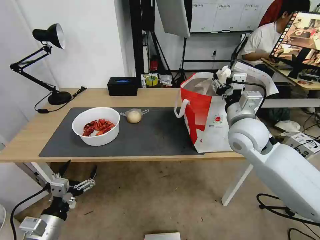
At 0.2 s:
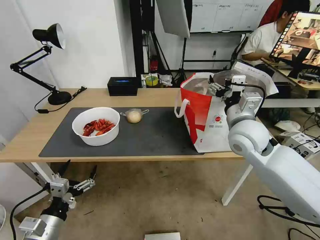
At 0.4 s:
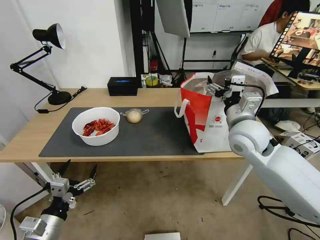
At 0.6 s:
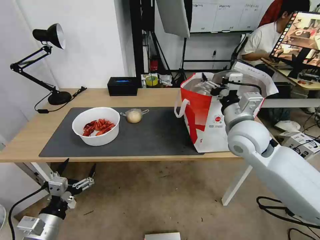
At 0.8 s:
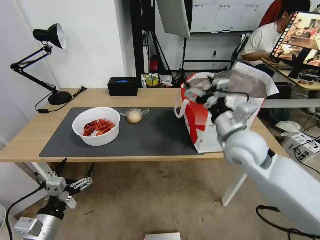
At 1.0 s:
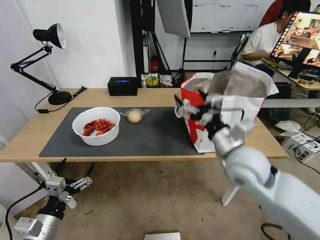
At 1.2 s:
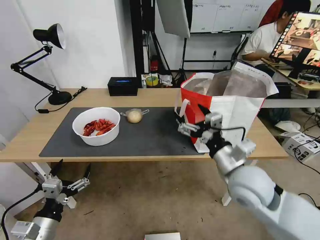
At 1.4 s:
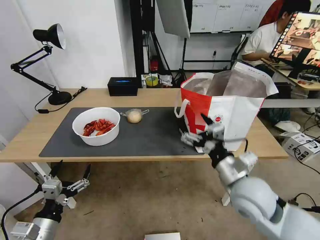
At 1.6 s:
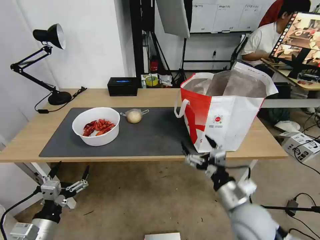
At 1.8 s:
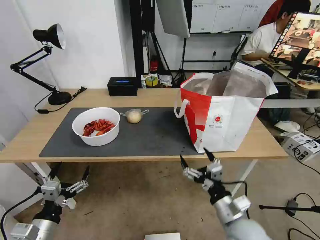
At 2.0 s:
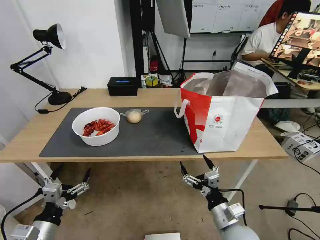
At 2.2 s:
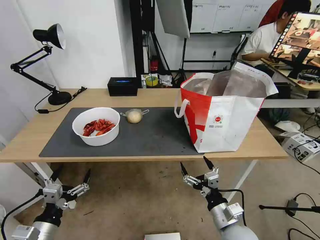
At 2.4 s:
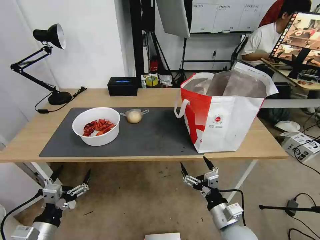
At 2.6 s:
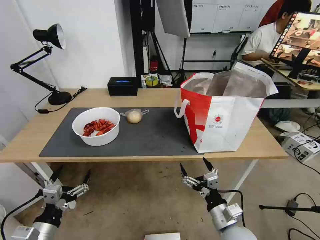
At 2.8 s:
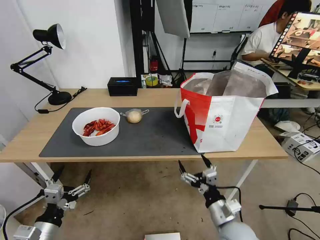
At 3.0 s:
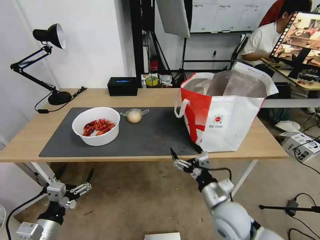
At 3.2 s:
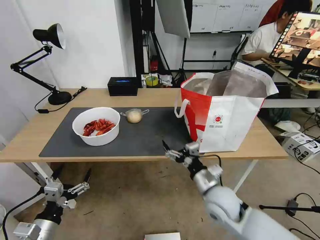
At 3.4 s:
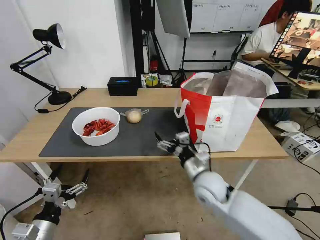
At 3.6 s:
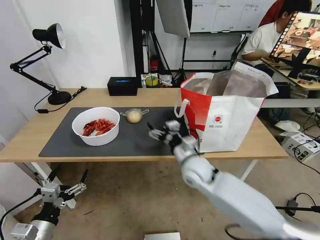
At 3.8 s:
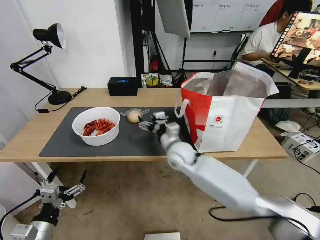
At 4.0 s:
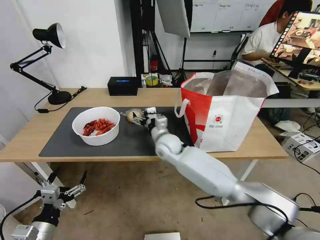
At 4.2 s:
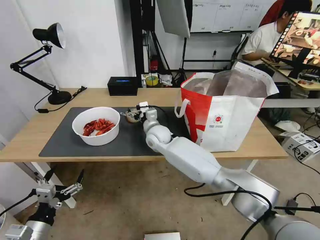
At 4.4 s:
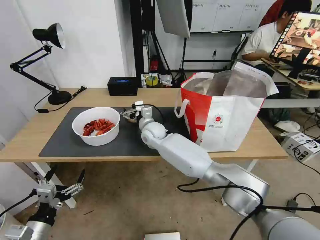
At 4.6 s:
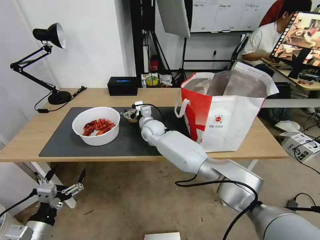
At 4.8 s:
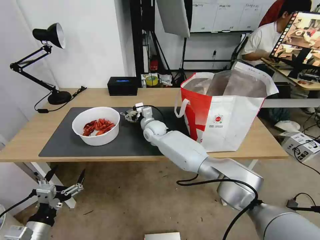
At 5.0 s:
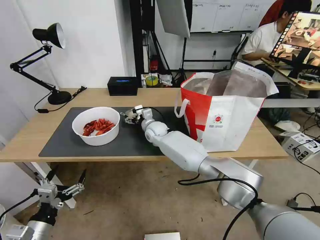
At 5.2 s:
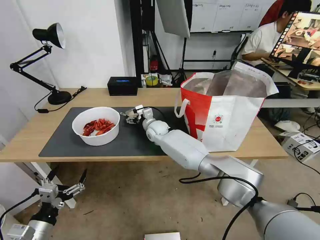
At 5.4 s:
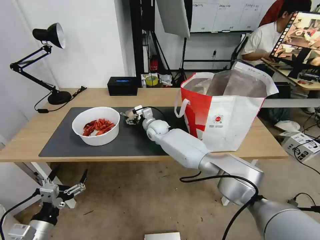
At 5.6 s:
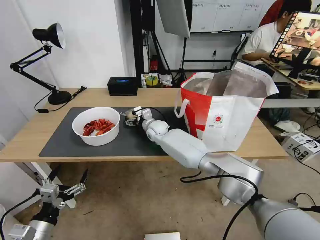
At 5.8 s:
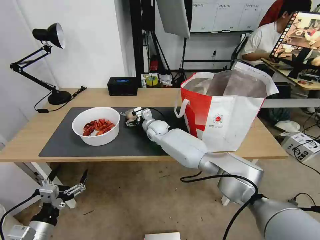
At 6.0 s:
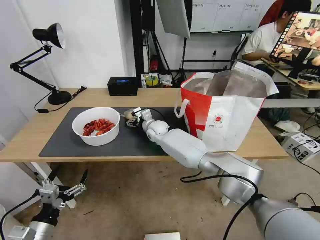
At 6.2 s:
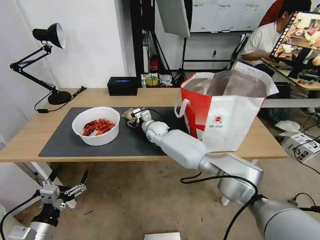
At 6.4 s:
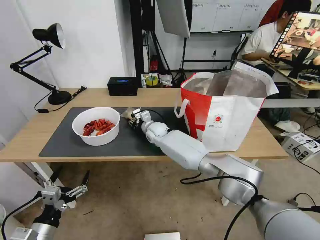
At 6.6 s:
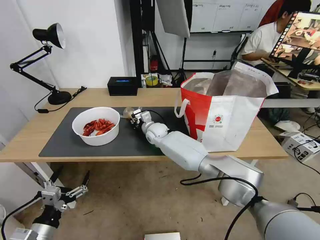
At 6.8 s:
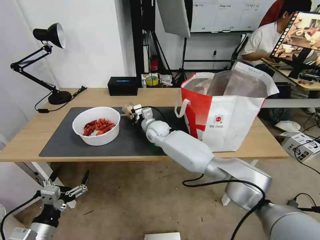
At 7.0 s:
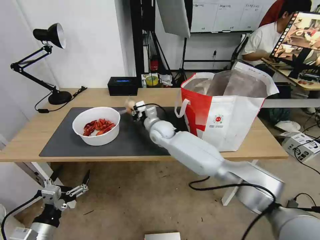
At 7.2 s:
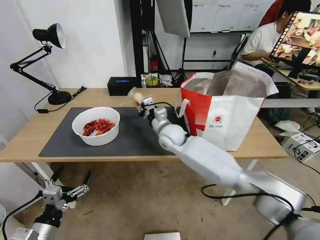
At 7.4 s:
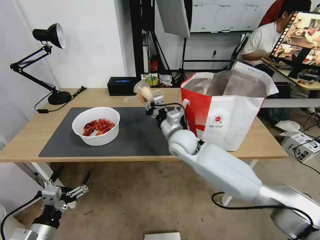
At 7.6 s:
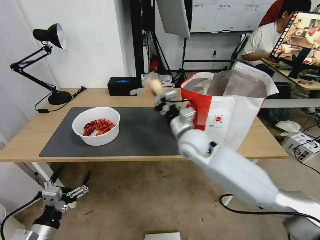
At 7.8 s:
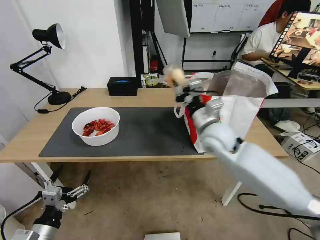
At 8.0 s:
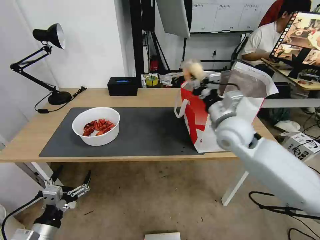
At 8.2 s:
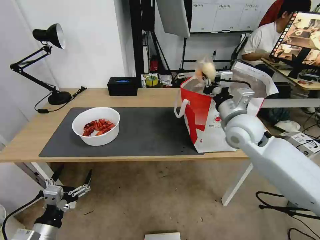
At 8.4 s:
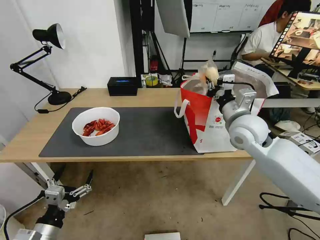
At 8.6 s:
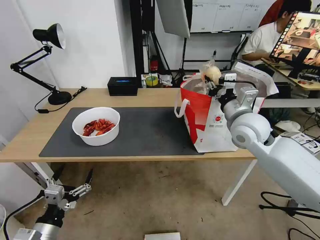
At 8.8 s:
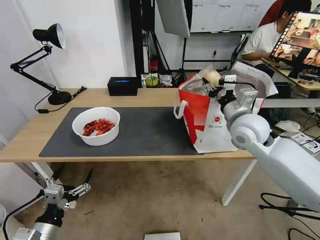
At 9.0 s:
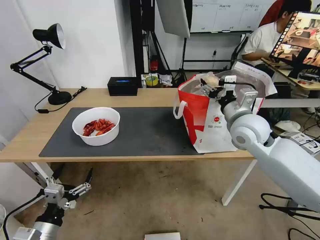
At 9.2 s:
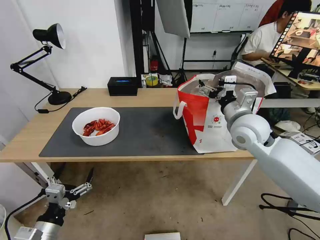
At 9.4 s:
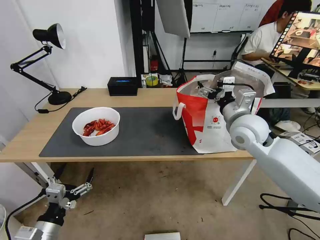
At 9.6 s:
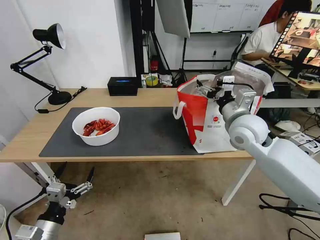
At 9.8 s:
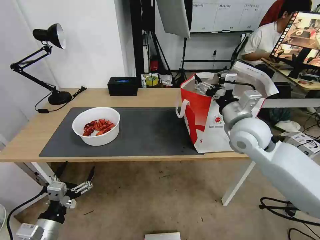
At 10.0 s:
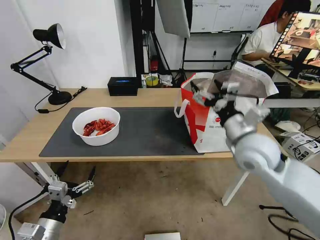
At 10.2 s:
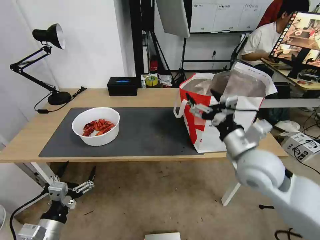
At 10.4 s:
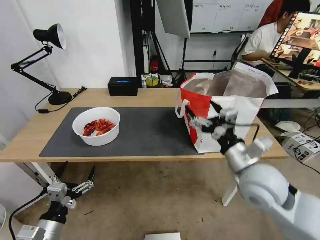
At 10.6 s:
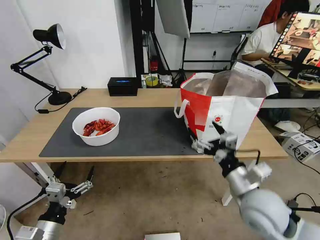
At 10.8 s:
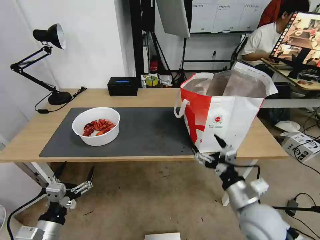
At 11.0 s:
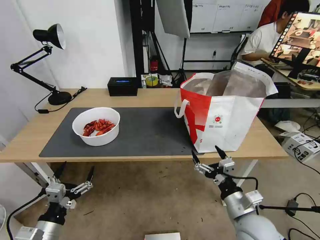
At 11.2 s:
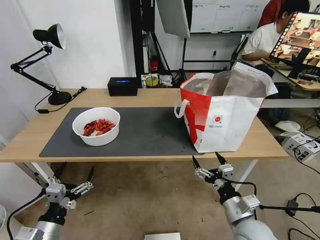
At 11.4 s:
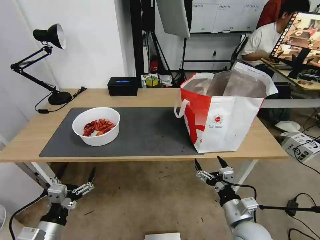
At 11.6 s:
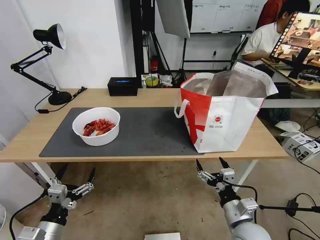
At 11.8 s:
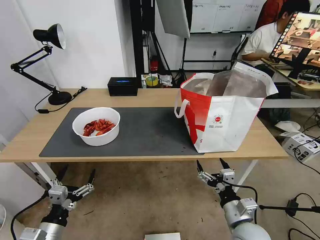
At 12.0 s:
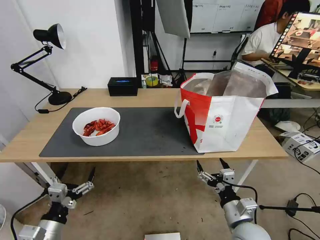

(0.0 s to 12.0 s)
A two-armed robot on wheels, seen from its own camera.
Task of the whole recording: Pick up the trash from the table and place it into the takeout bag.
0.0 s - 1.6 s: The right gripper shifts roughly 20 cm backward and downward.
1.6 s - 3.0 s: The right gripper shifts some 5 cm downward.
3.0 s - 4.4 s: The right gripper moves forward and to the left, roughly 35 cm.
4.4 s - 6.0 s: The right gripper travels forward by about 5 cm.
6.0 s - 7.6 s: The right gripper shifts some 25 cm backward, to the right and upward, and closes its fingers.
7.6 s - 9.0 s: The right gripper moves to the right and upward, roughly 15 cm, and opens.
9.0 s - 10.4 s: The right gripper heads backward, covering some 15 cm.
10.4 s - 12.0 s: The right gripper shifts approximately 20 cm downward and backward.

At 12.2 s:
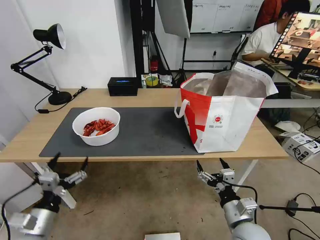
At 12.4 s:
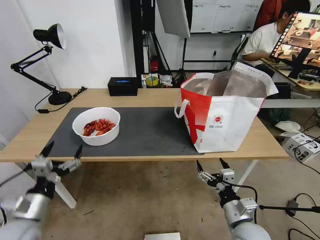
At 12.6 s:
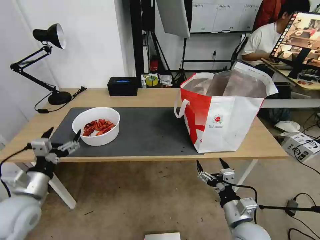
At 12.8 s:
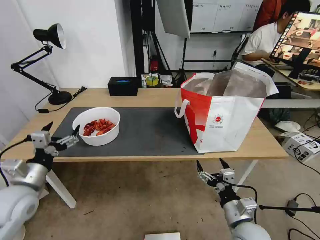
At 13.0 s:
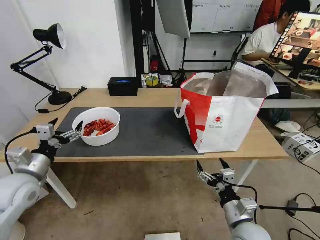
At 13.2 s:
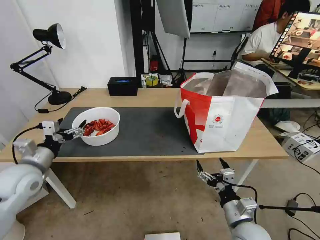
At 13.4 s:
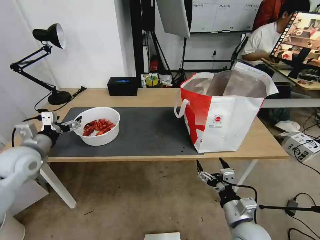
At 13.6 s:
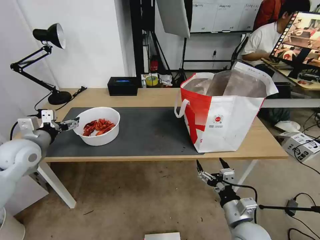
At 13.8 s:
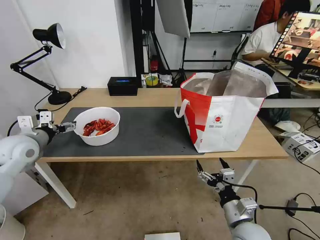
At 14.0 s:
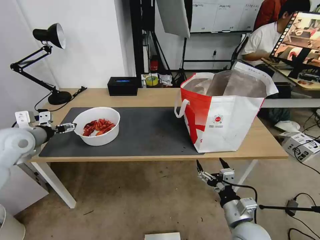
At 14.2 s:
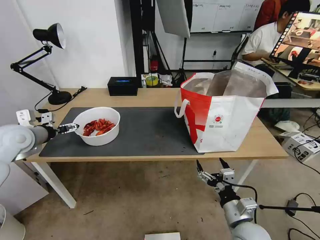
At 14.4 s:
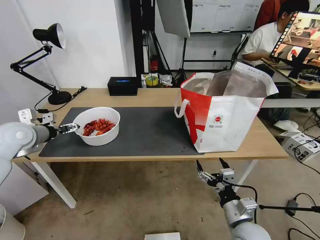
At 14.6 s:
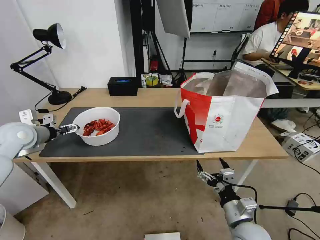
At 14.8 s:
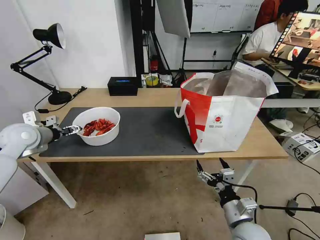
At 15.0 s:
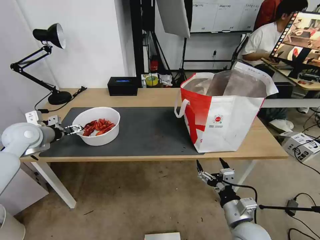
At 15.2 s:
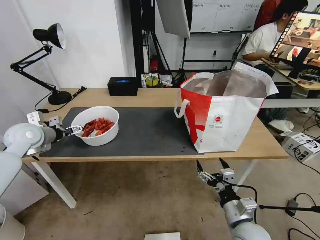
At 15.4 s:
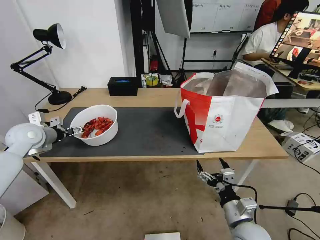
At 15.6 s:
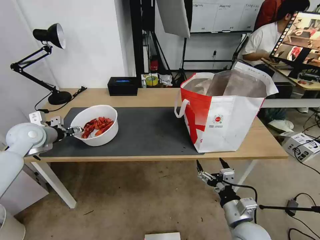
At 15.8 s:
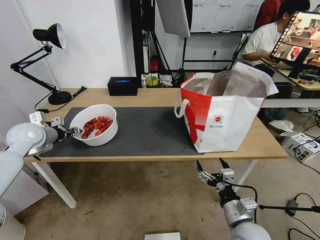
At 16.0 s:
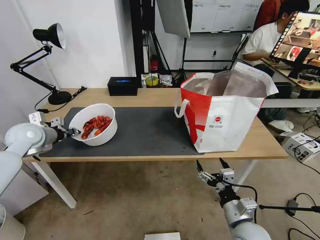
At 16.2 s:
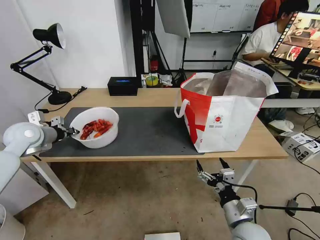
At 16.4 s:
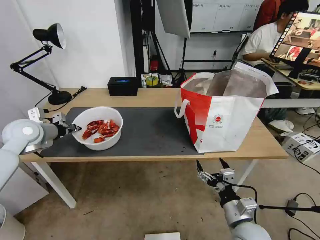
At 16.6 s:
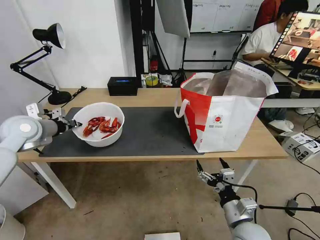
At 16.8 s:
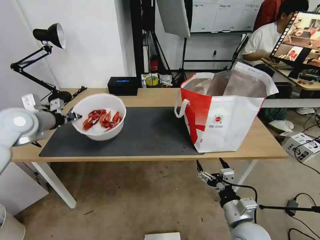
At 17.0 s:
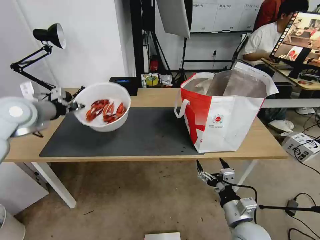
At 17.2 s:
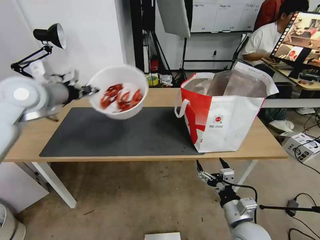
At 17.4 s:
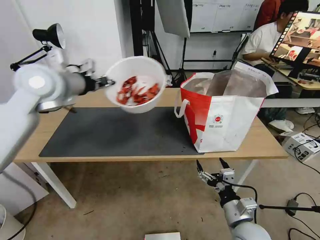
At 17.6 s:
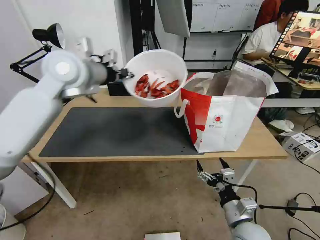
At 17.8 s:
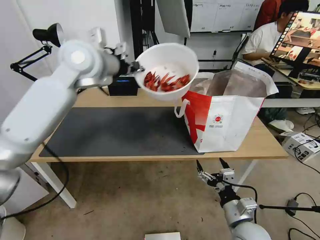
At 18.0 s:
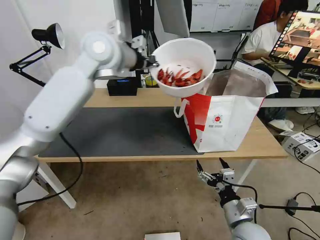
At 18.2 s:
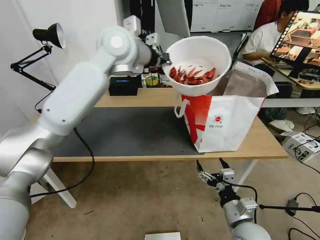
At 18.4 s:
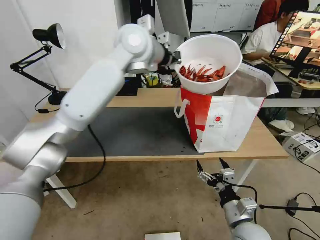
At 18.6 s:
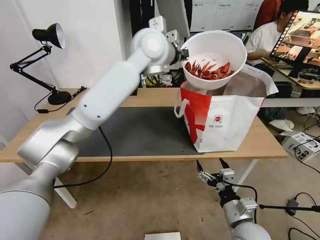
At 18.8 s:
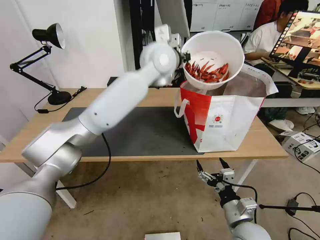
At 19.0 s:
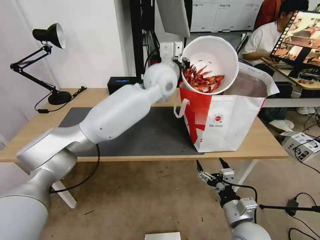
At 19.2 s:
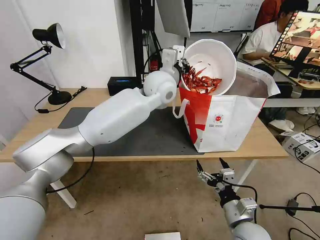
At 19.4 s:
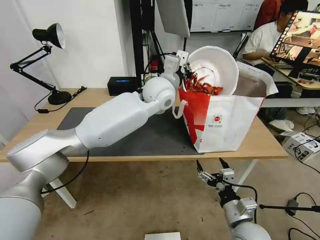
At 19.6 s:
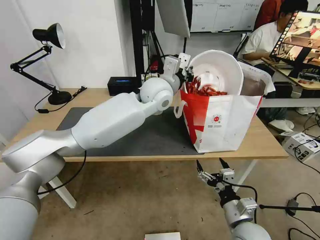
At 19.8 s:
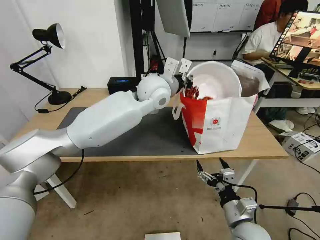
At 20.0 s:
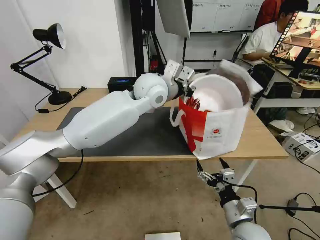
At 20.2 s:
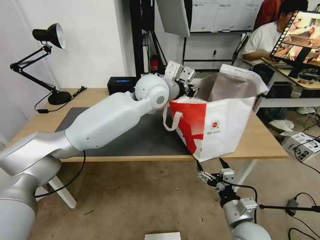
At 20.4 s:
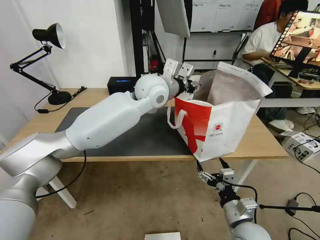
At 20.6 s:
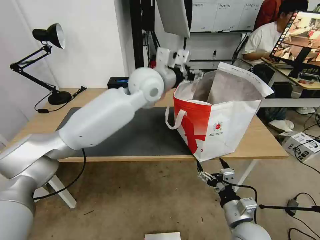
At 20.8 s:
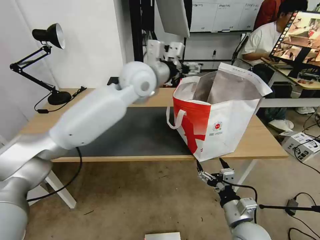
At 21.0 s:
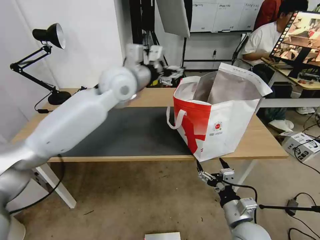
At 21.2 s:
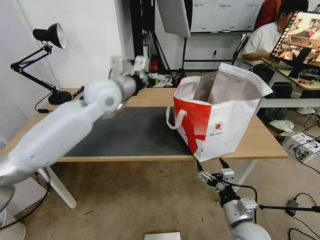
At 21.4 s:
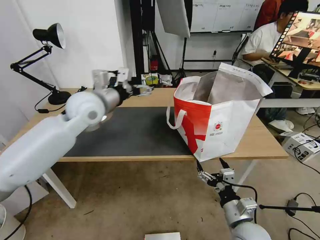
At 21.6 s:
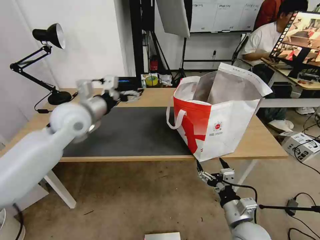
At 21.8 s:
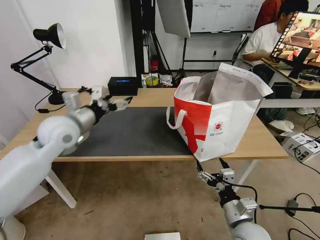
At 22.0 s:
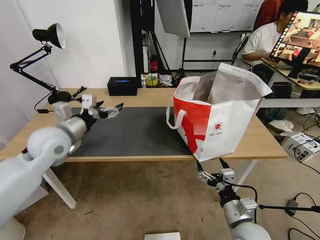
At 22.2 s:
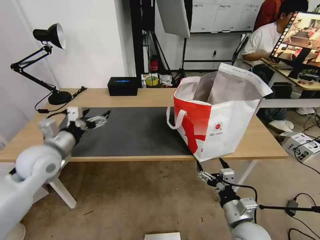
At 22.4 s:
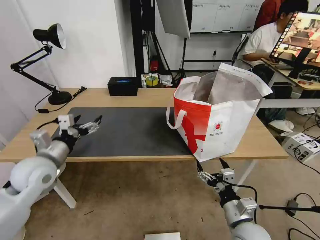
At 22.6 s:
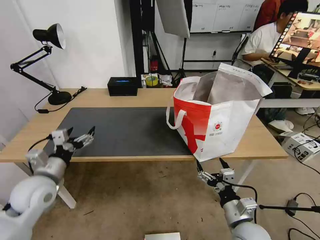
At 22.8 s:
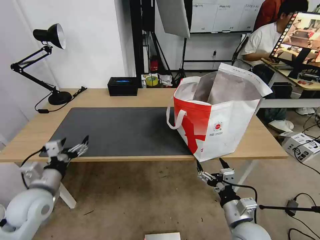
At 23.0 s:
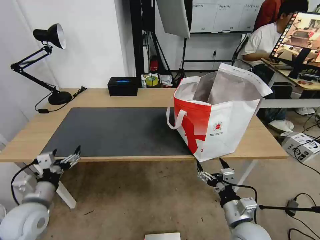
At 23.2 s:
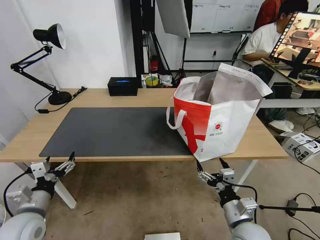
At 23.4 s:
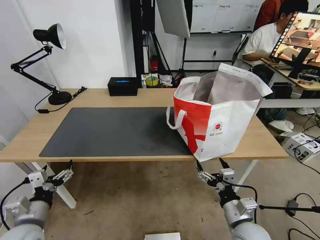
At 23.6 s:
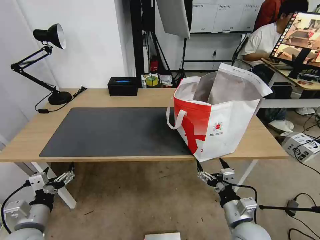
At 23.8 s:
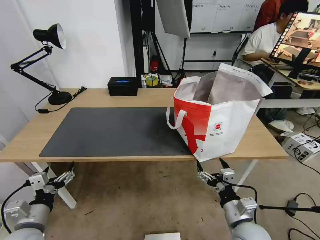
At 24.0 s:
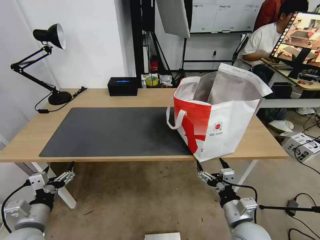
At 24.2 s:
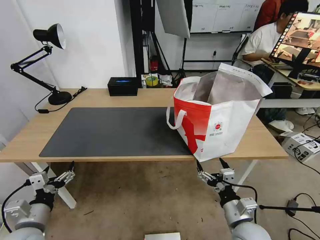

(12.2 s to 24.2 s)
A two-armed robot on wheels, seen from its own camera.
Task of the whole recording: Pick up the trash from the table and place it into the takeout bag.
12.2 s - 13.8 s: The left gripper shifts approximately 25 cm forward and upward.
13.8 s - 15.2 s: The left gripper moves roughly 5 cm.
15.2 s - 16.6 s: The left gripper closes its fingers.
16.6 s - 18.2 s: The left gripper moves to the right and upward, roughly 35 cm.
18.2 s - 19.8 s: The left gripper heads downward and to the right, covering roughly 15 cm.
19.8 s - 21.2 s: The left gripper moves to the left, some 15 cm, and opens its fingers.
21.2 s - 22.6 s: The left gripper is displaced downward, to the left and backward by about 30 cm.
22.6 s - 24.2 s: The left gripper heads backward and downward, covering approximately 15 cm.
